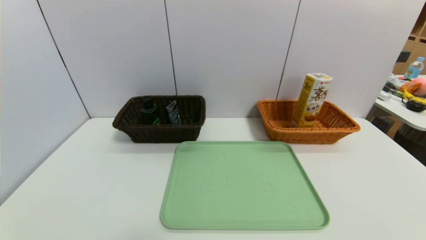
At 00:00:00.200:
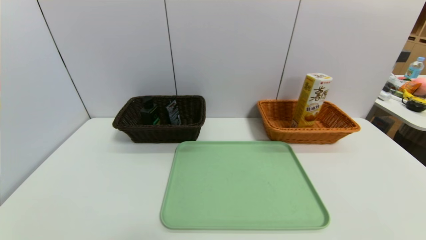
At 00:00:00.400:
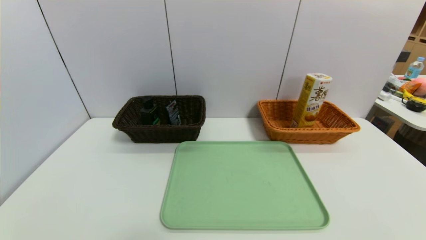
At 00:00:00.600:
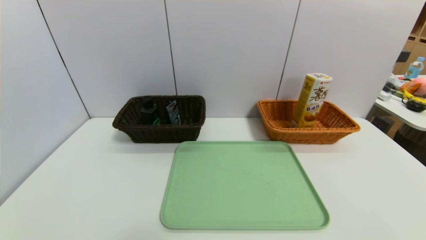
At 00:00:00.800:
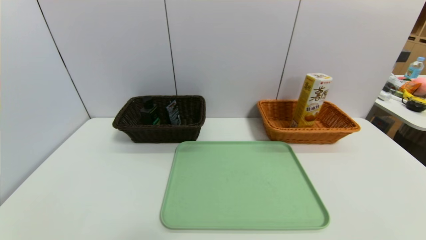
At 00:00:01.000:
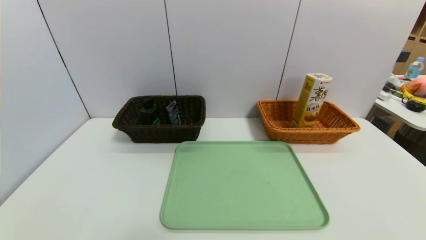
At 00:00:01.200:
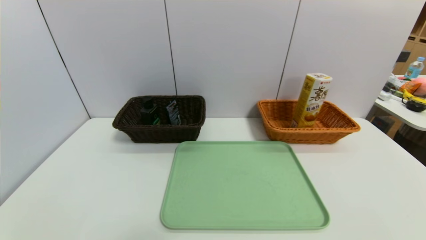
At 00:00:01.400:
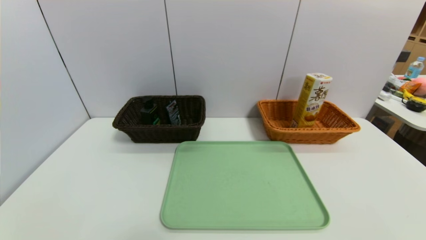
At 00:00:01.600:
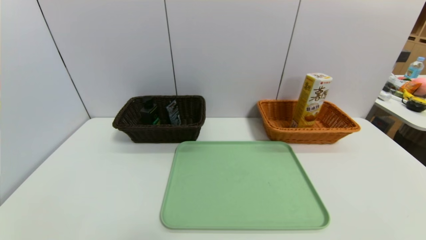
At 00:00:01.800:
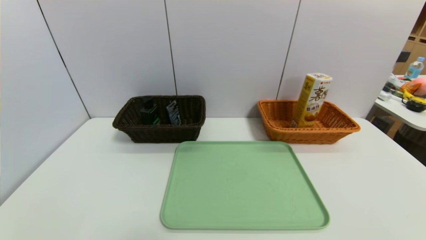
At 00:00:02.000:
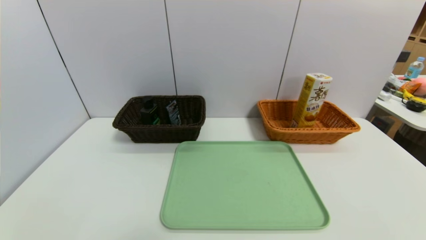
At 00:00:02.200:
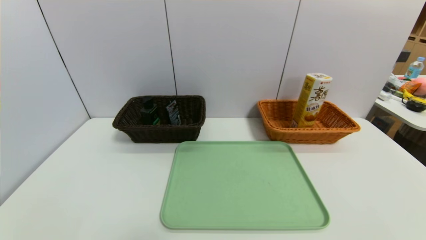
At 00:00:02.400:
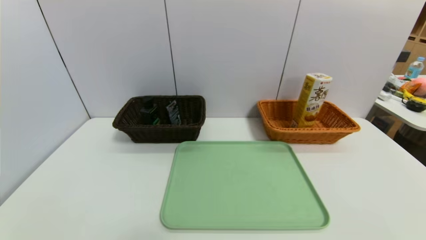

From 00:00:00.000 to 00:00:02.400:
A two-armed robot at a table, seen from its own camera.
Task of the whole recording: place the food in the right basket with the right gripper, and place the non food items in the left basket with the left gripper.
From 00:00:00.000 to 00:00:02.400: Both grippers stay about where they are.
